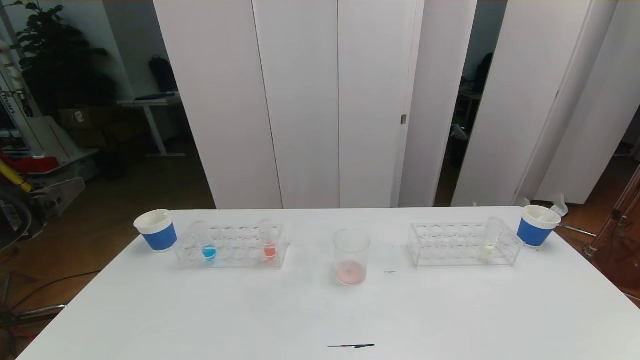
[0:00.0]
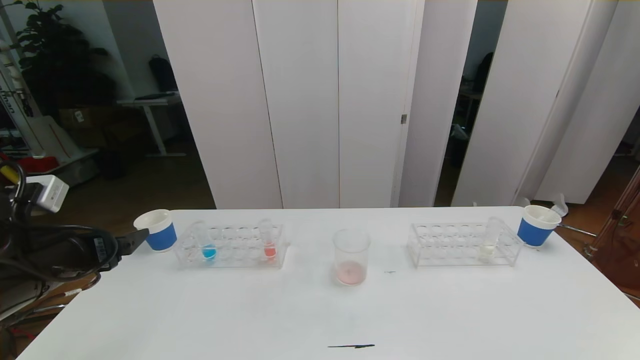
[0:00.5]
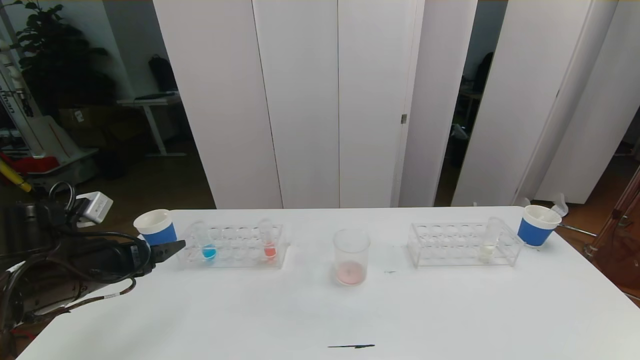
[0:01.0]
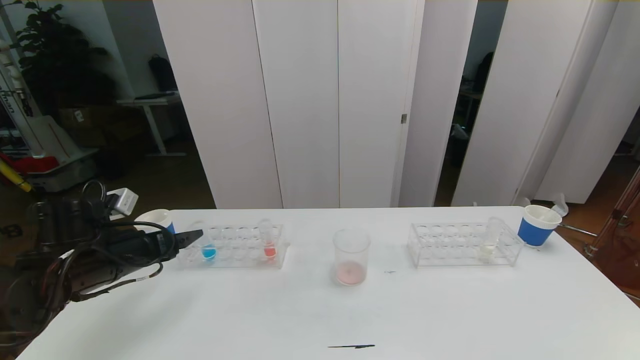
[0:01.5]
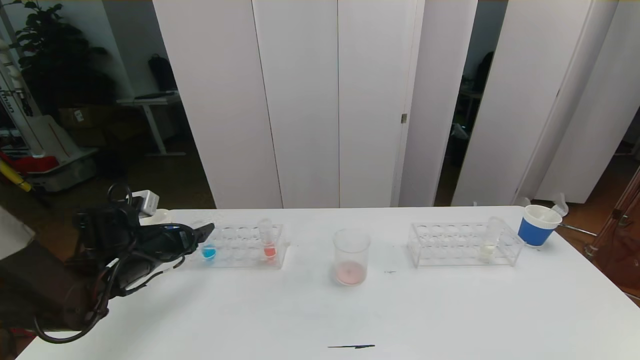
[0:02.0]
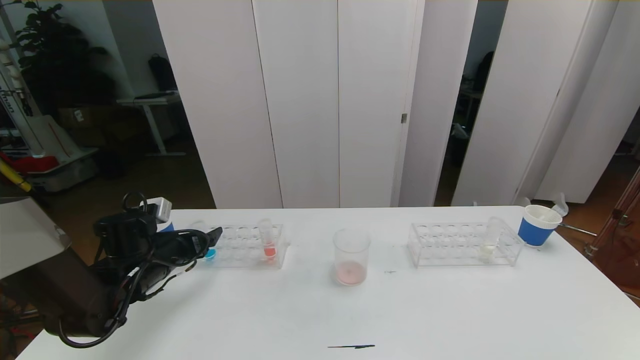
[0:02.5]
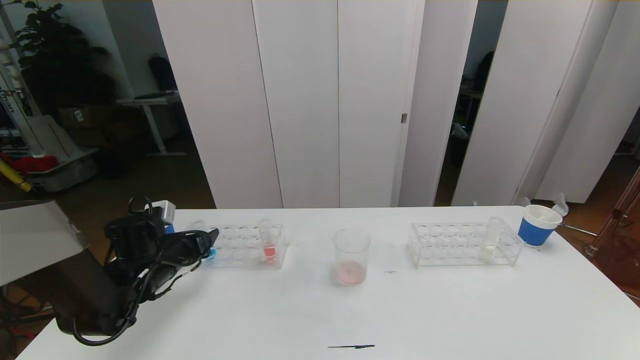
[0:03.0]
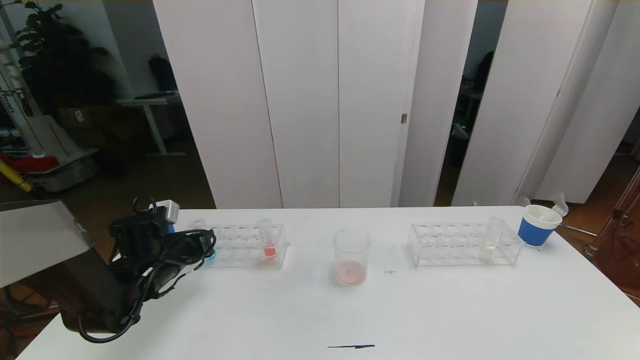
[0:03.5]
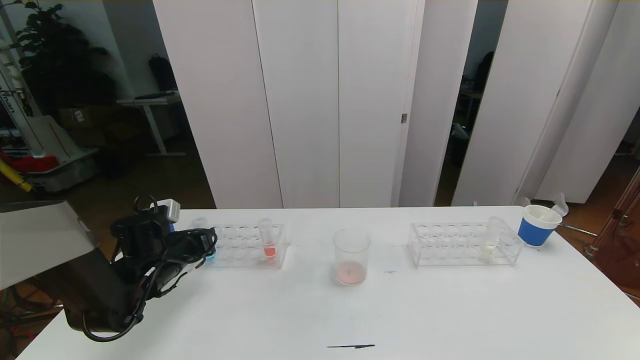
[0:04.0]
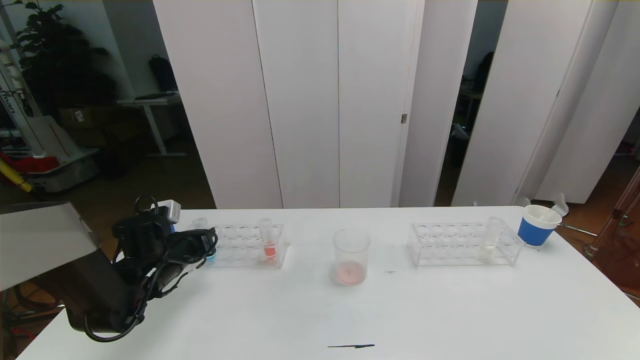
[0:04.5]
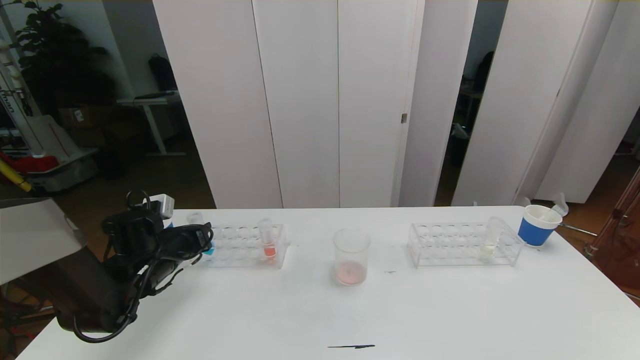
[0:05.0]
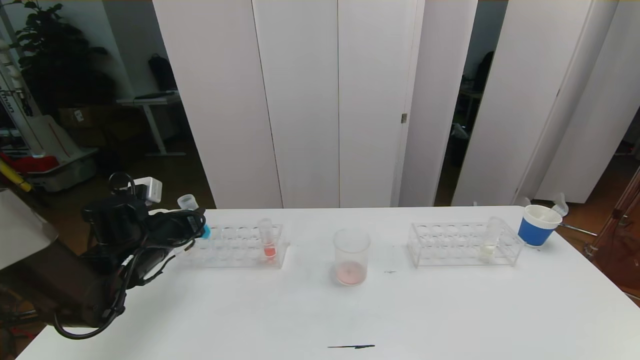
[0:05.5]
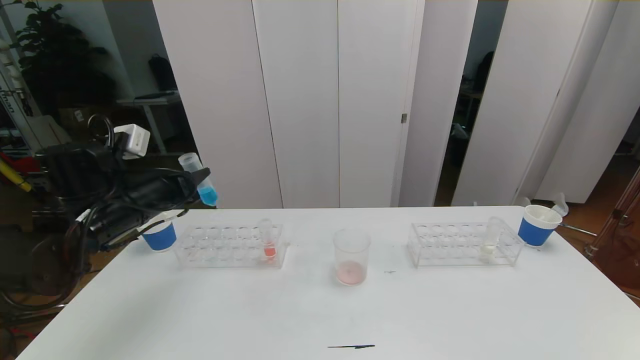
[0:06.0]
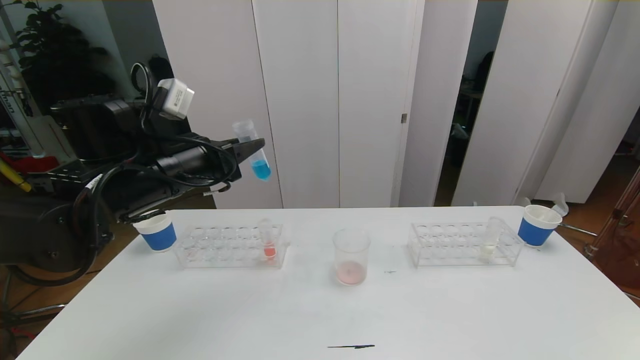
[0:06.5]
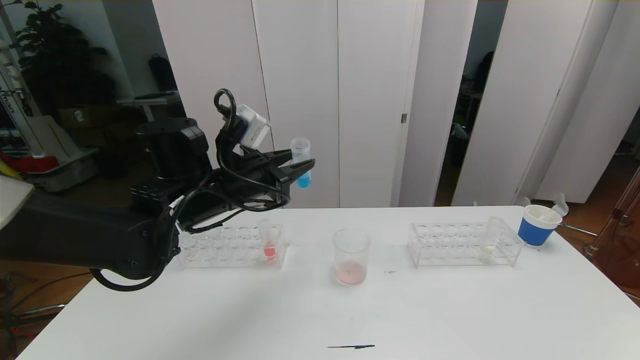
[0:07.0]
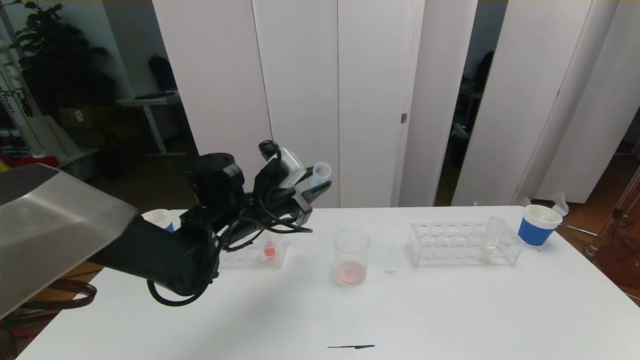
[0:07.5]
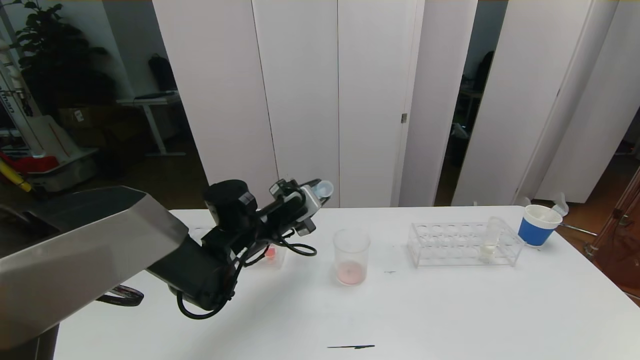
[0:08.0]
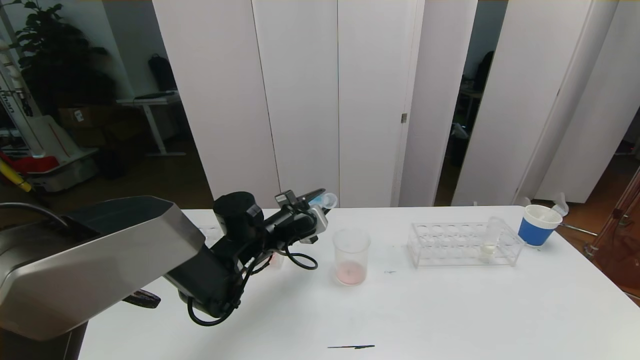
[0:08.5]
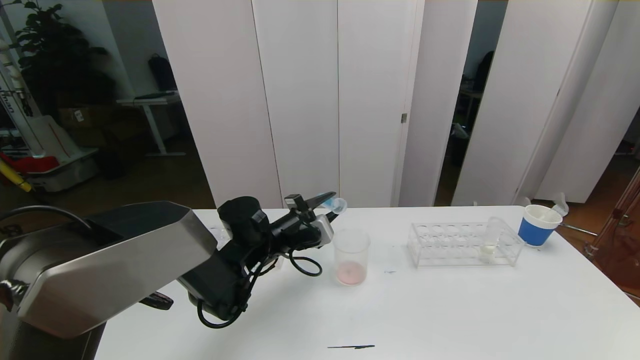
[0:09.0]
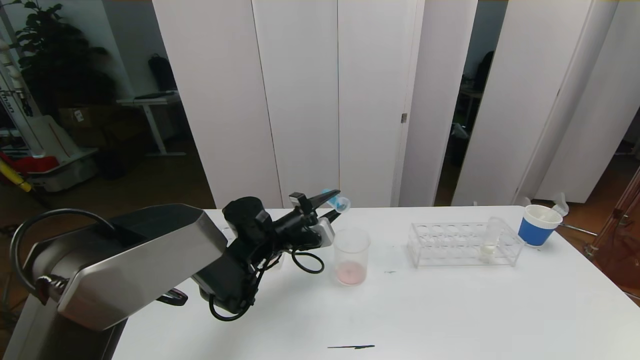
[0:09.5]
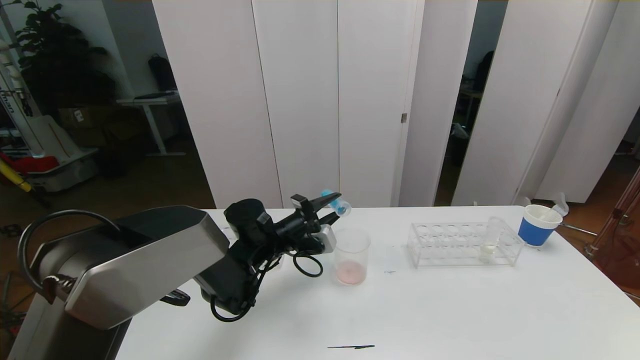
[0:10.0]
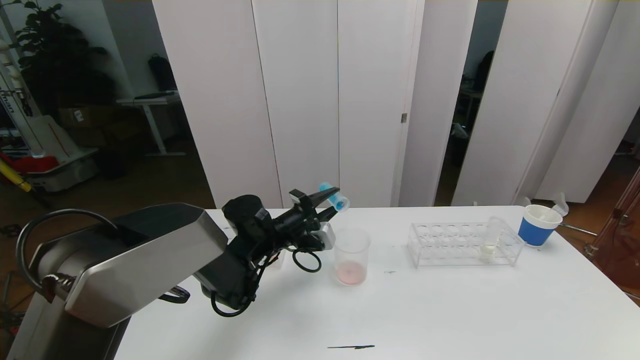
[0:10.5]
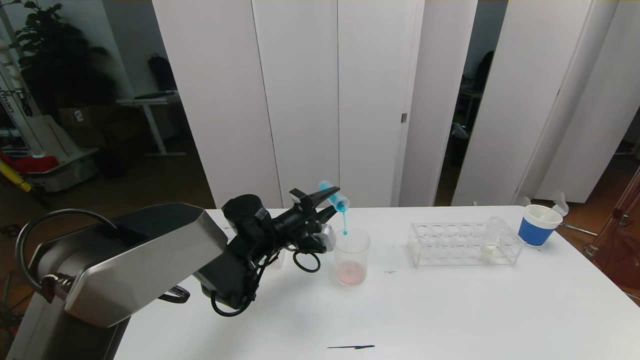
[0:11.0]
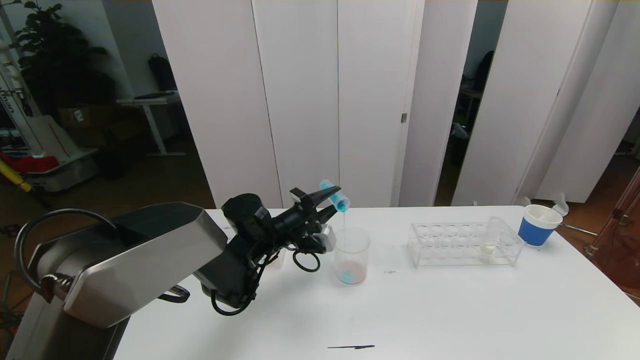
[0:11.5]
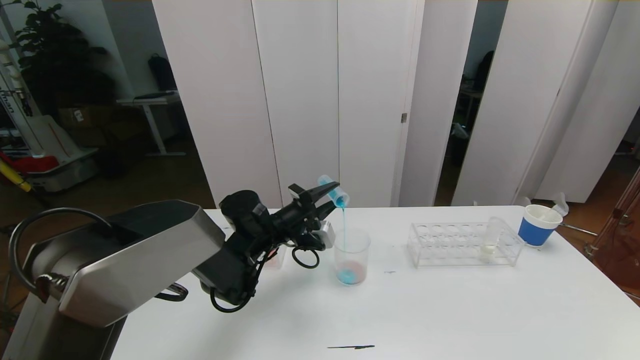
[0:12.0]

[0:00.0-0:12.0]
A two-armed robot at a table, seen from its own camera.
Task of the whole recording: pick up the test tube with red pigment the test tube with blue pigment and the test tube with white pigment by grippers and pour them into the beaker.
0:00.0 to 0:02.0: The left gripper is displaced downward and forward by approximately 25 cm.
0:02.0 to 0:04.0: The left gripper closes up.
0:04.0 to 0:06.0: The left gripper travels upward by about 15 cm.
0:06.0 to 0:08.0: The left gripper shifts approximately 20 cm to the right and downward.
0:10.0 to 0:12.0: The grippers move only a little.

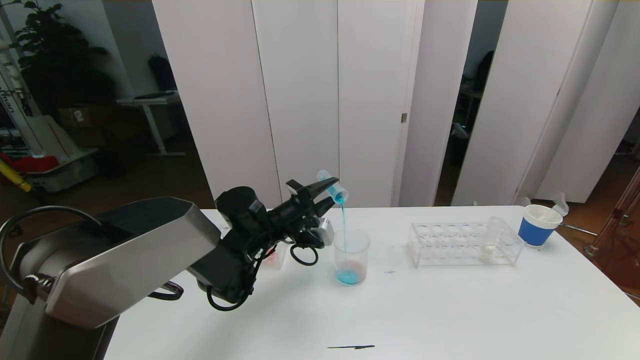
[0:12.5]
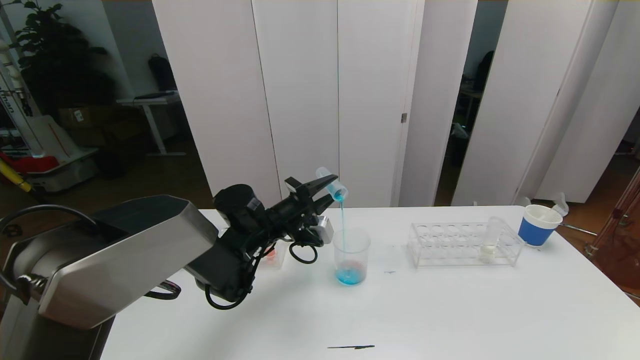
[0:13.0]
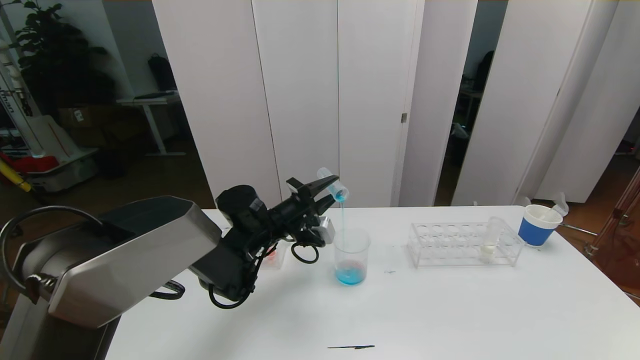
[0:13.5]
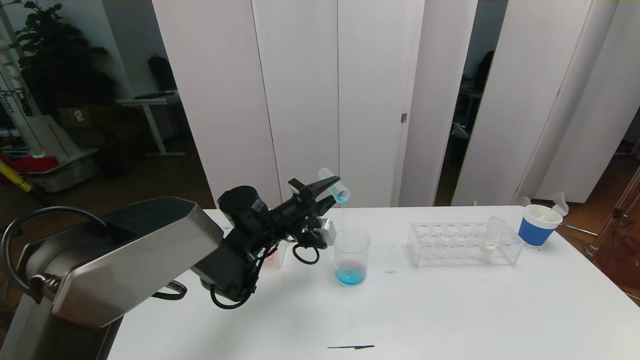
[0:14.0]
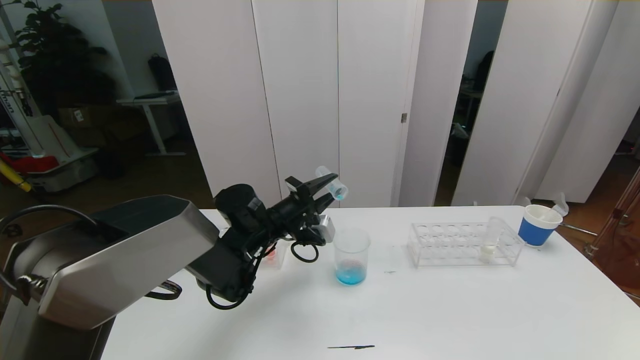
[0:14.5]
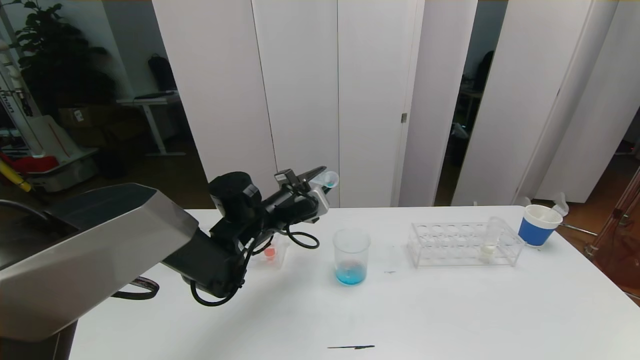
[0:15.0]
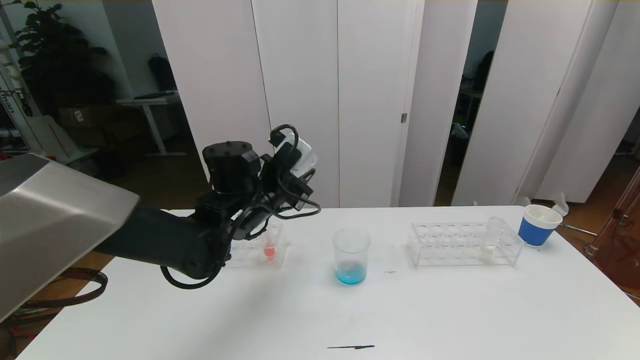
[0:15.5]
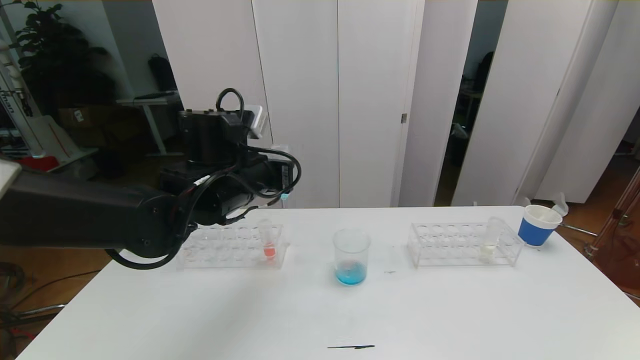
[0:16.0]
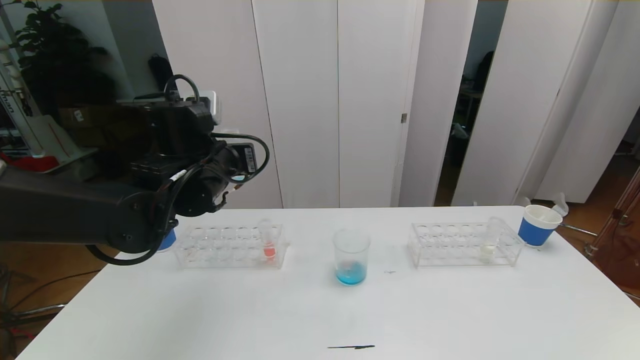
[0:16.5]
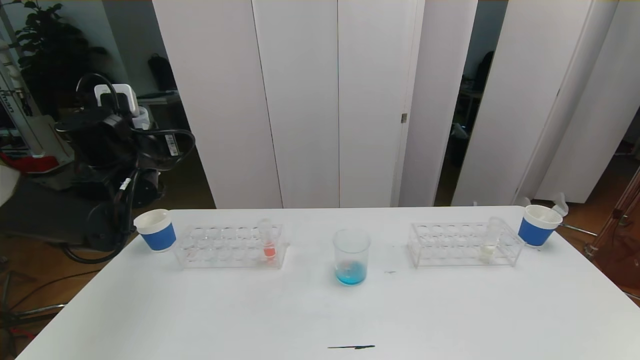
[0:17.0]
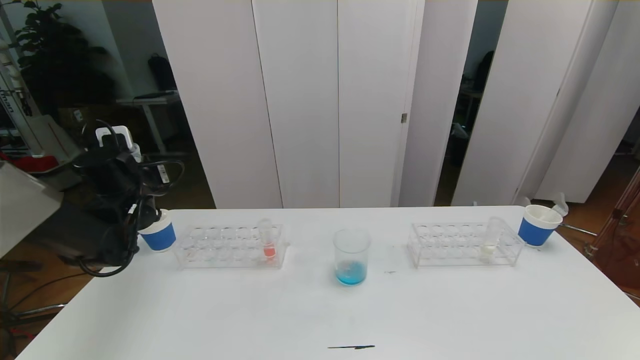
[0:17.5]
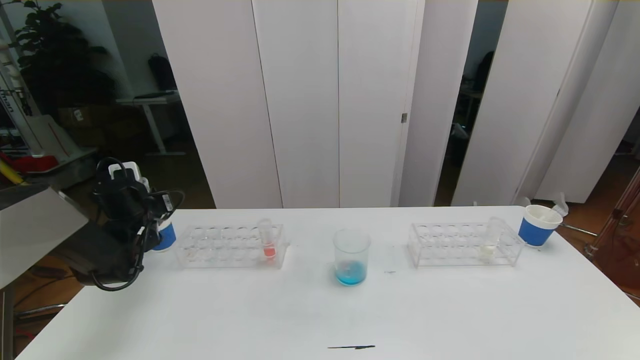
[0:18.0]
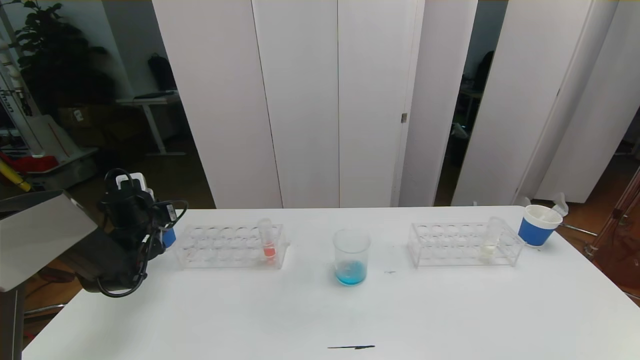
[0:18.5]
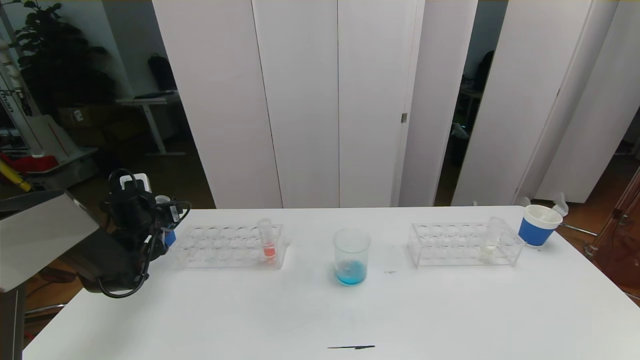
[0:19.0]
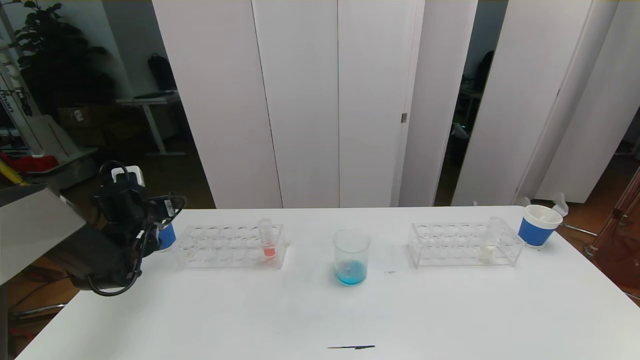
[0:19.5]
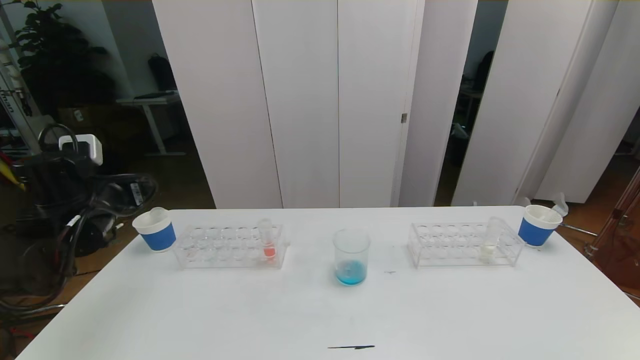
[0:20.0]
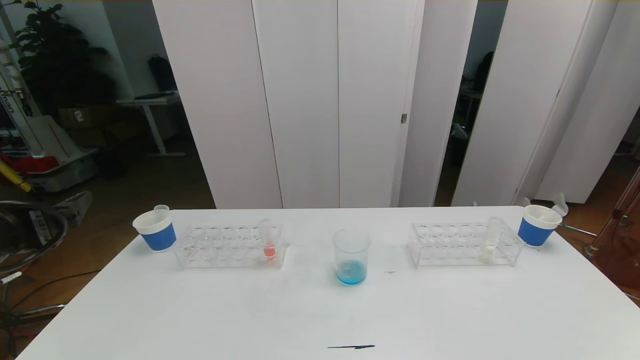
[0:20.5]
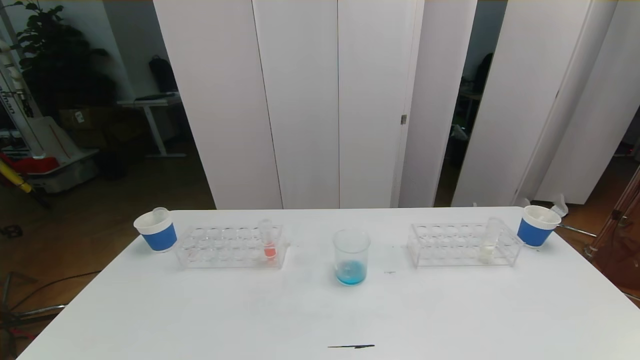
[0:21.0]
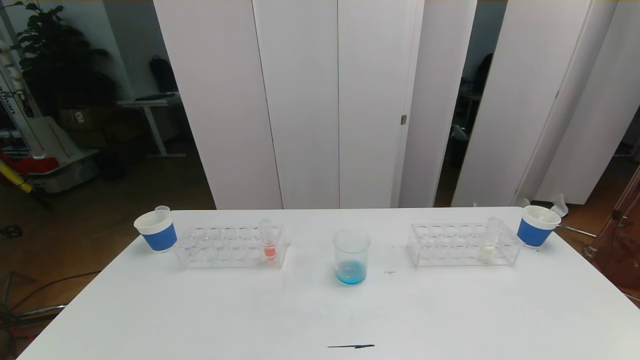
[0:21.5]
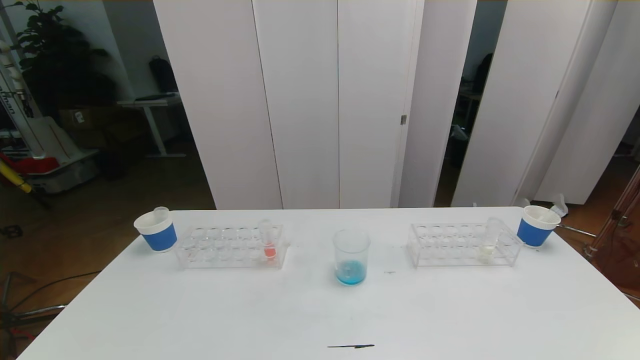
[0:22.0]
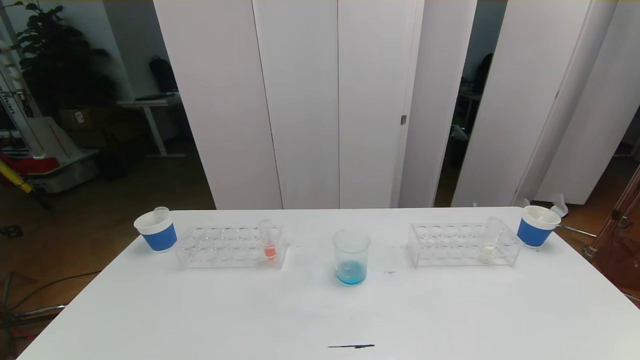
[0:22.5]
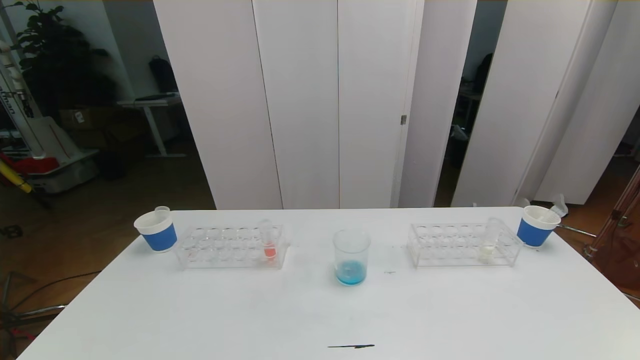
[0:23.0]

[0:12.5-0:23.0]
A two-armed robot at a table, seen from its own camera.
Task of the whole recording: pick up the test tube with red pigment the test tube with blue pigment and the test tube with white pigment by grippers and pour them into the beaker.
0:12.5 to 0:14.5: The two grippers keep their place.
0:14.5 to 0:16.5: The left gripper moves upward and to the left, some 15 cm.
0:16.5 to 0:19.0: The left gripper moves to the left and downward, some 25 cm, and opens up.
0:19.0 to 0:21.0: The left gripper travels backward by some 40 cm.
